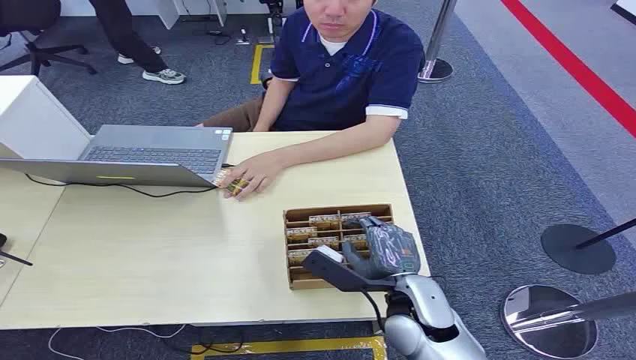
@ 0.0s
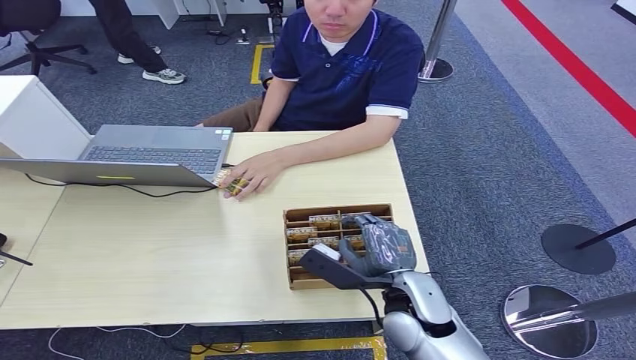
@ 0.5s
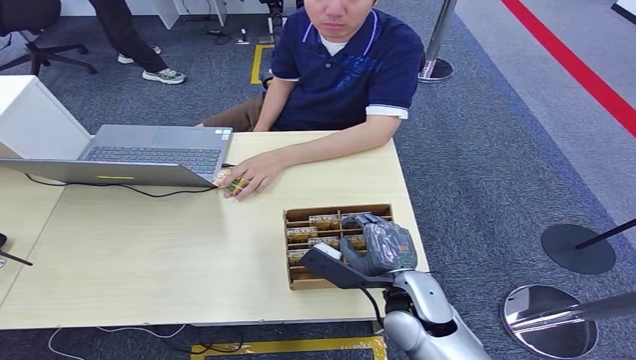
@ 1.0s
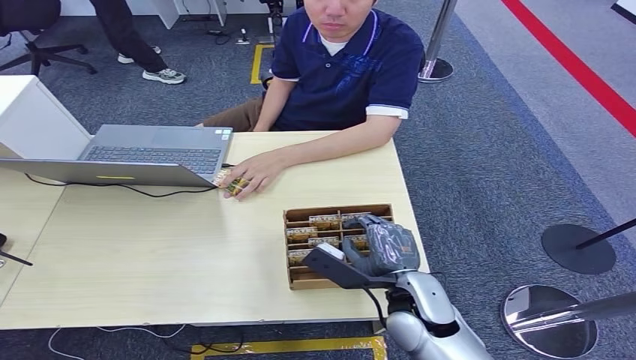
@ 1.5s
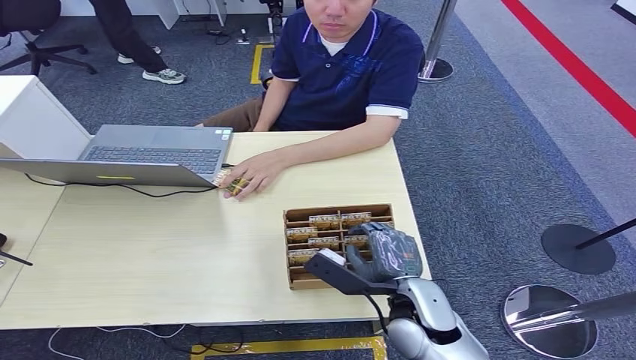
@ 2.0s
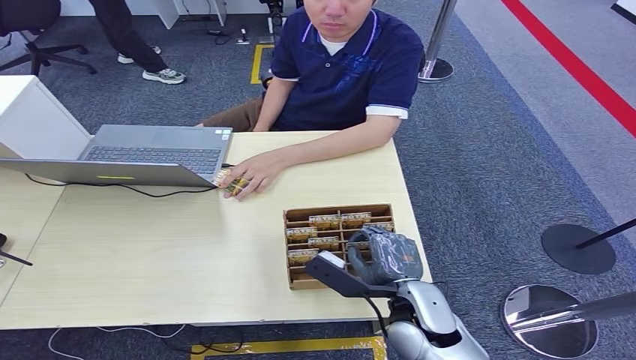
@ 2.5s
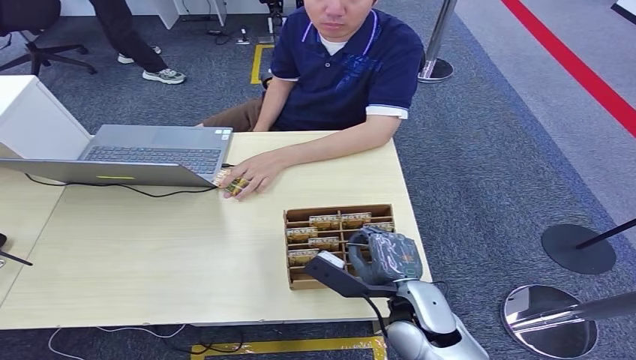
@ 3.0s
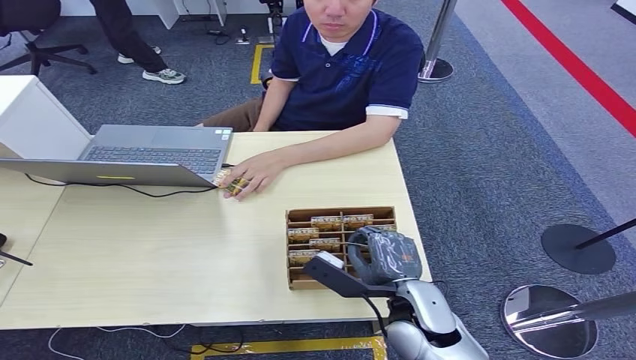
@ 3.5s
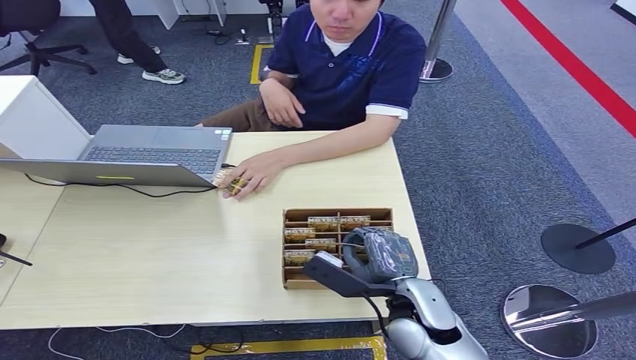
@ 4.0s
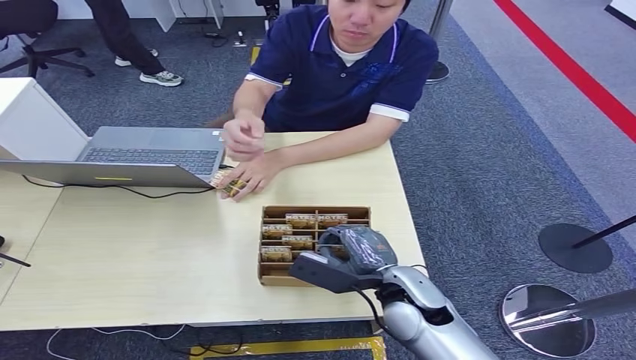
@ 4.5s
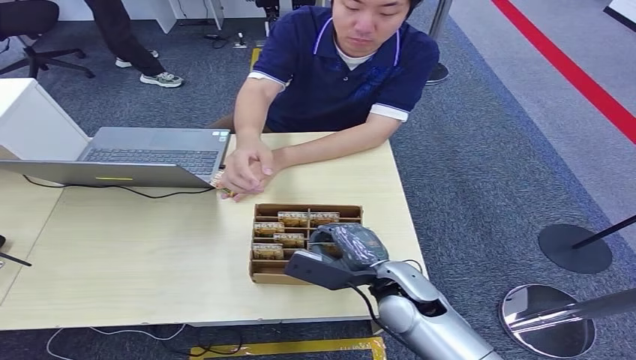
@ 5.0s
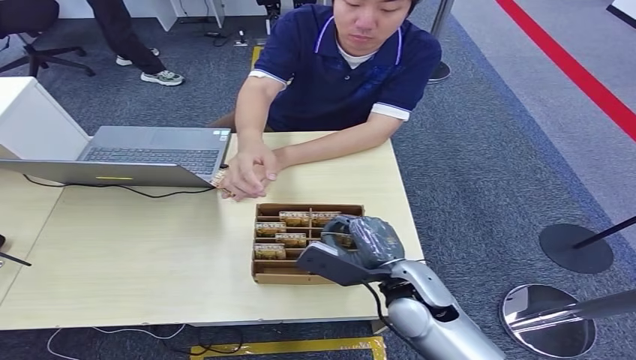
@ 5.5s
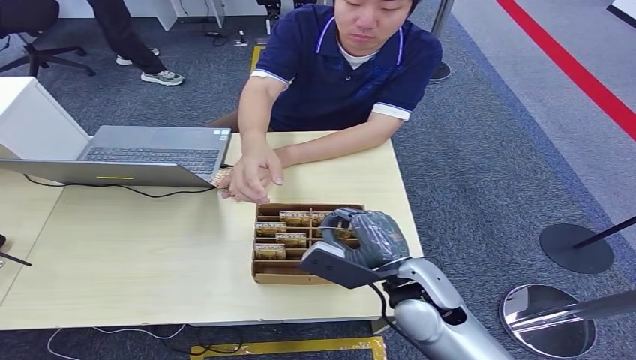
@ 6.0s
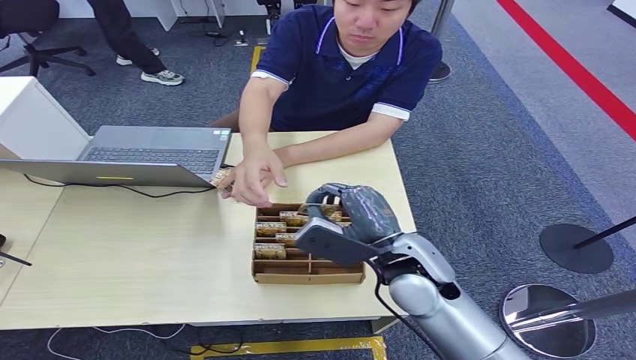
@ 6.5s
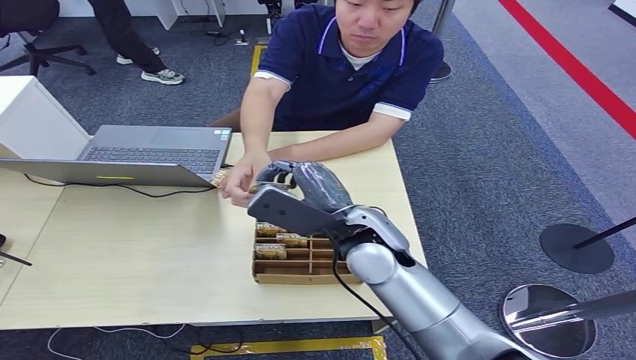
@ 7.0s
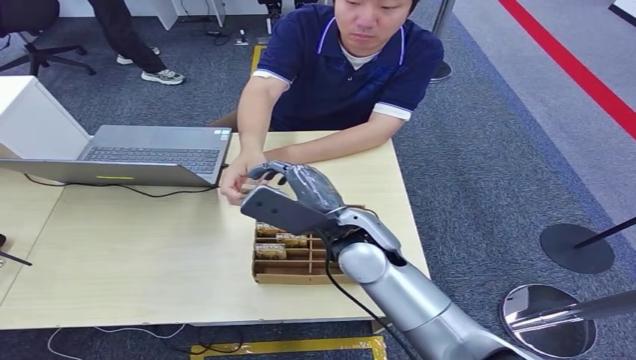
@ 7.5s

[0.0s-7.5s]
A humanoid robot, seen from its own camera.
Step, 0.0s to 6.0s: Pick up the room card from the card holder.
Step, 6.5s to 7.5s: Hand the room card to the target.
2.0s to 4.0s: The hands make only small movements.
4.0s to 5.5s: The right hand moves upward, about 5 cm.
5.5s to 7.5s: The right hand shifts approximately 15 cm to the left, forward and upward.
